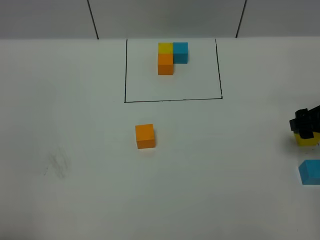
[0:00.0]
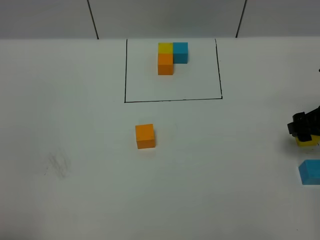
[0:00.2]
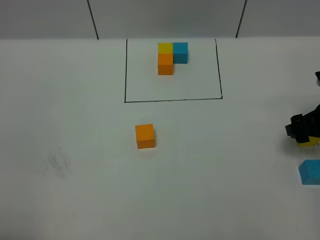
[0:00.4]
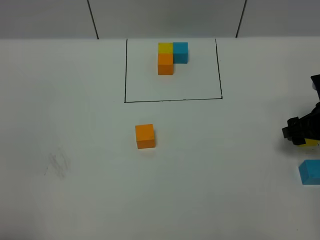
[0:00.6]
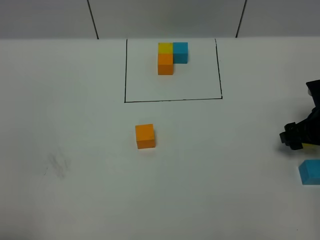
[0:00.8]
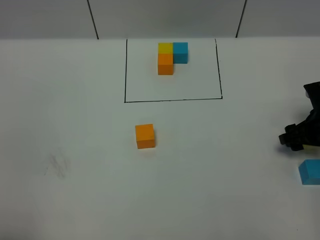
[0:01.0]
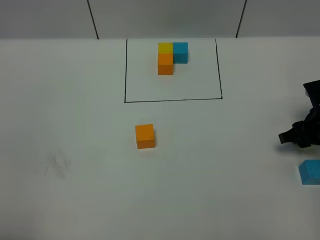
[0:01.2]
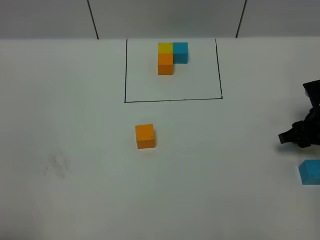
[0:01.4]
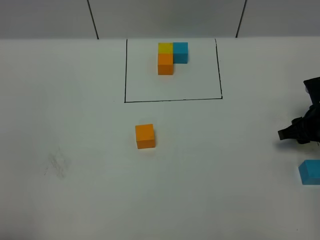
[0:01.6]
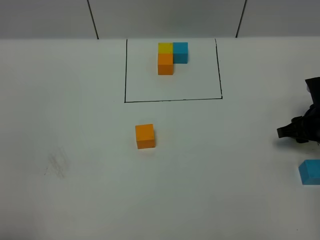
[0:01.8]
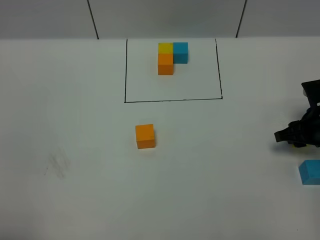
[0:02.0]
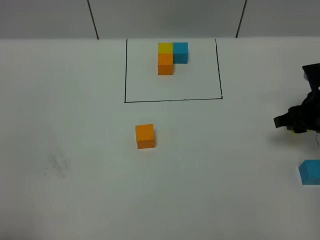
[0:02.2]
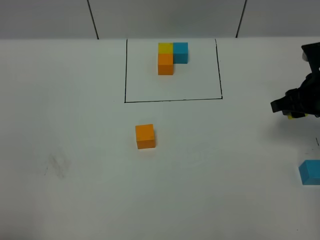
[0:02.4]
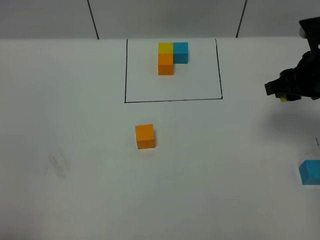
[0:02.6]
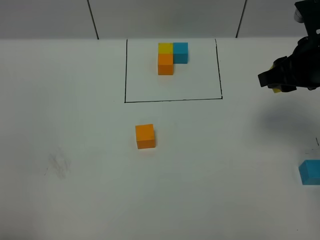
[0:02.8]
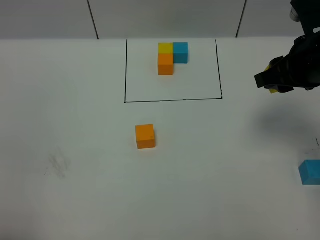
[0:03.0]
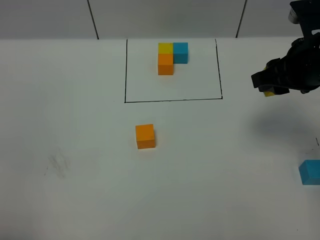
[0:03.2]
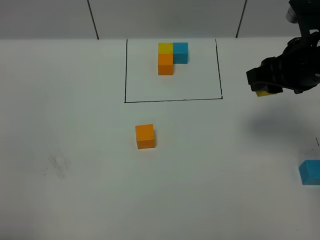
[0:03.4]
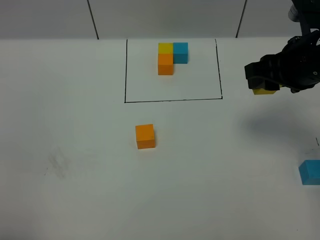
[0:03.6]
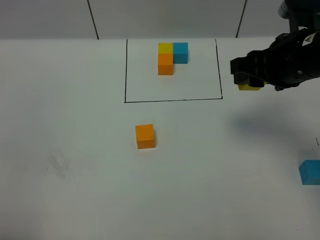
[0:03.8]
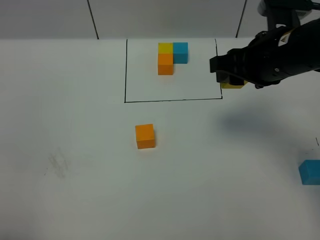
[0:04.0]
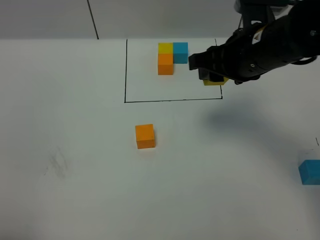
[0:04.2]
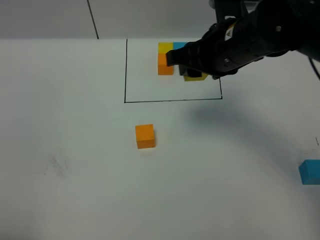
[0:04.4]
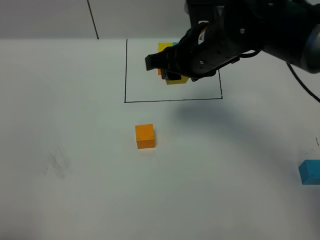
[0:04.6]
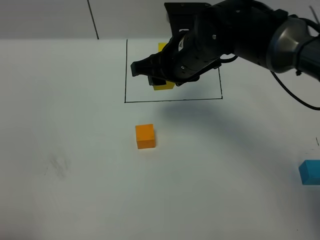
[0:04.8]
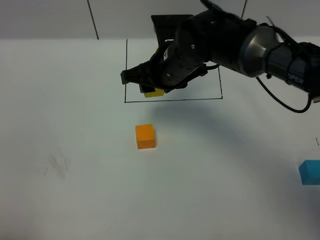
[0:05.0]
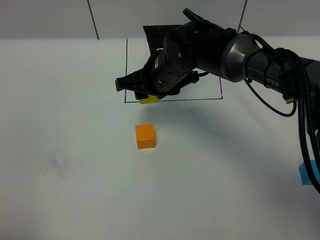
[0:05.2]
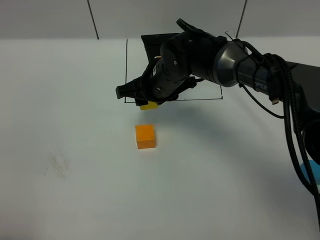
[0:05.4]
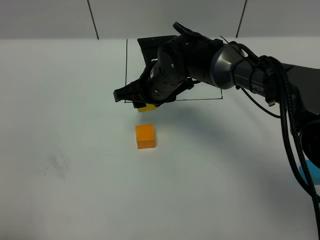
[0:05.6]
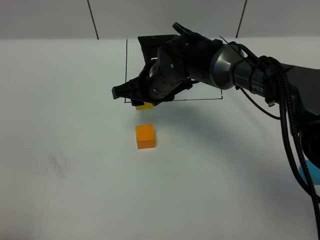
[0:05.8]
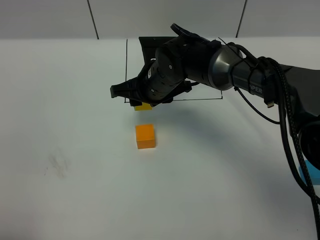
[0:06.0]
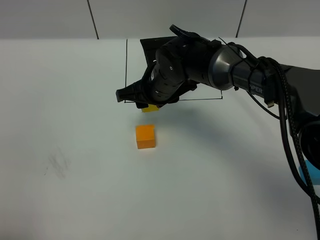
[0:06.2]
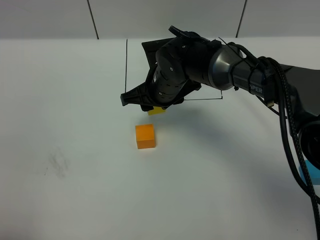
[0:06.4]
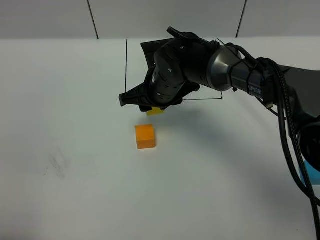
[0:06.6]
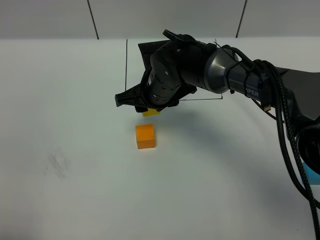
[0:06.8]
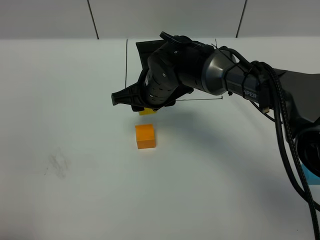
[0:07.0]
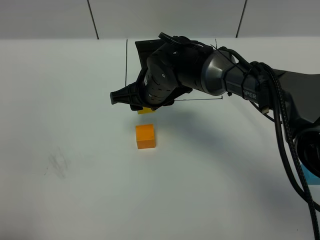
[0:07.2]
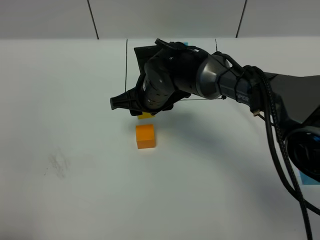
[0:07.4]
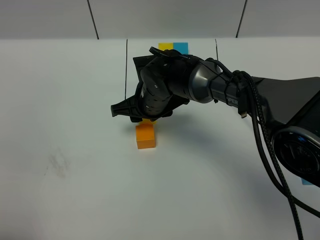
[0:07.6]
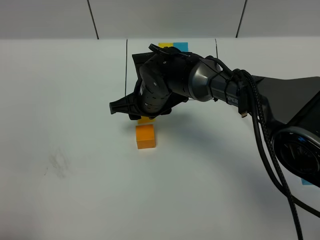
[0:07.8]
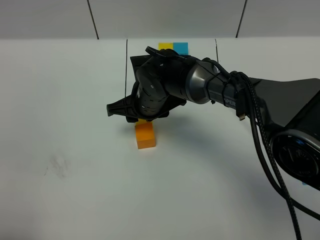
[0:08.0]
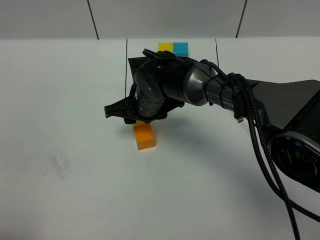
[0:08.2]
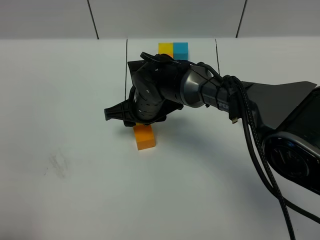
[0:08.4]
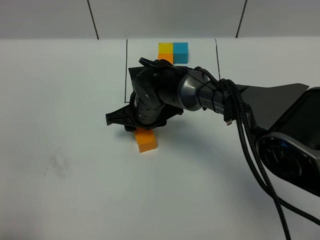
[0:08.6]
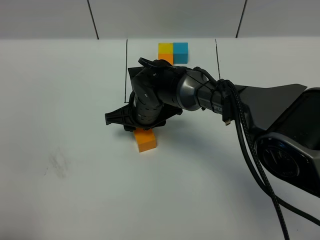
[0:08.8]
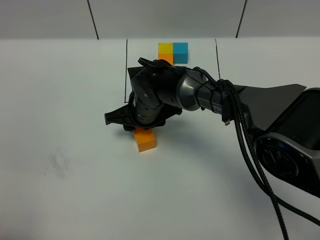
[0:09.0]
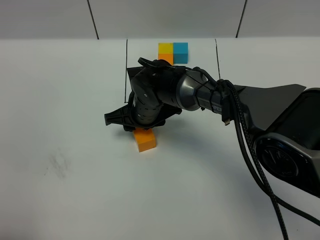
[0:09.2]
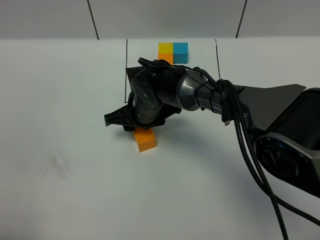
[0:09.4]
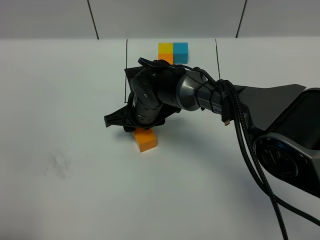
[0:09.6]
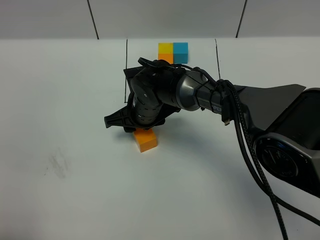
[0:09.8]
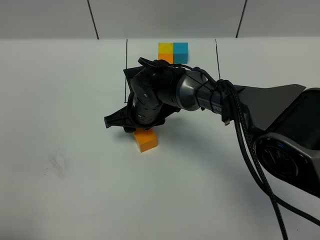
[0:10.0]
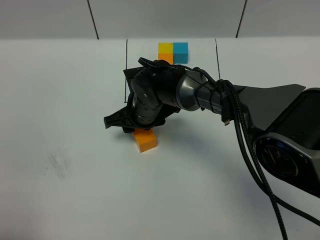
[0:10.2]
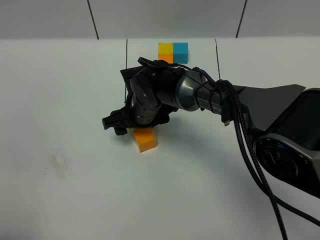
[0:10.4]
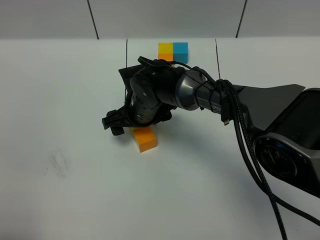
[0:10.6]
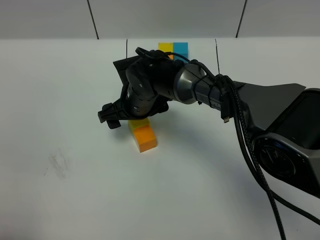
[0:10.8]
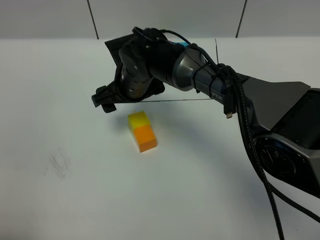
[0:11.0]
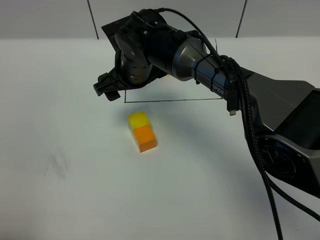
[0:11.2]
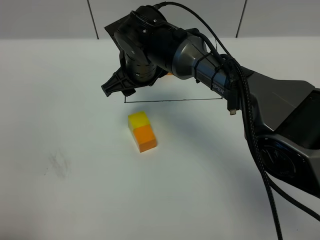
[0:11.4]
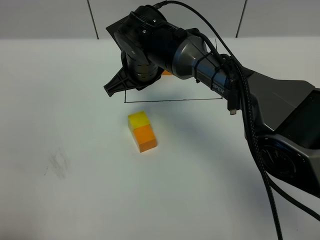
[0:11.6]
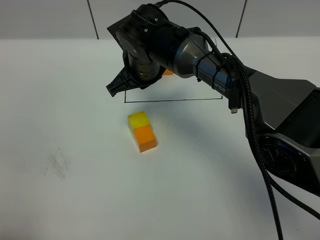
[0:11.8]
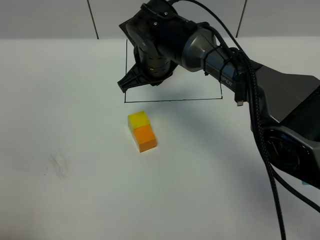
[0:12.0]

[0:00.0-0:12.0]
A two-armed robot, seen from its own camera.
Task of the whole recording: According to the building block template in front, assemble the scattered blocks together.
Step, 0:00.0 to 0:11.6: Put the yellow cube on the behind of the orange cube.
0:00.0 to 0:01.6: The right gripper moves downward, some 5 cm, and closes up.
0:01.6 to 0:03.0: The right gripper travels upward and to the left by about 20 cm.
0:03.0 to 0:04.4: The right gripper heads to the left, covering about 15 cm.
0:04.4 to 0:06.0: The right gripper goes approximately 15 cm downward and to the left.
0:06.0 to 0:07.6: The grippers make only small movements.
0:07.6 to 0:09.0: The grippers stay close to where they were, moving slightly.
0:09.0 to 0:10.4: The right gripper opens.
0:10.4 to 0:12.0: The right gripper moves upward, approximately 10 cm, and closes.

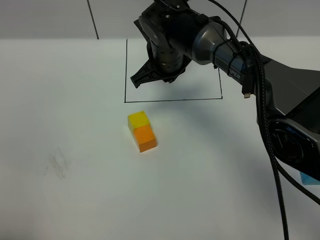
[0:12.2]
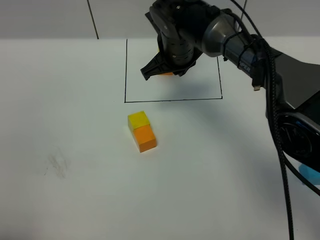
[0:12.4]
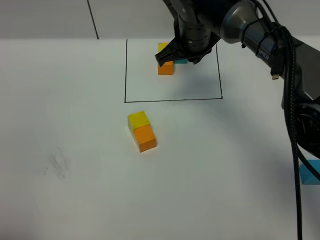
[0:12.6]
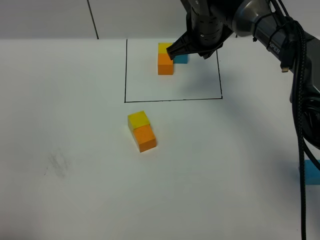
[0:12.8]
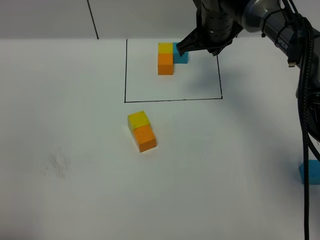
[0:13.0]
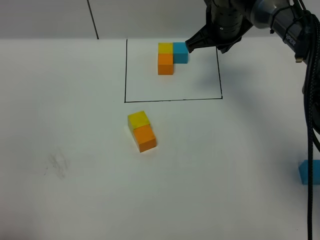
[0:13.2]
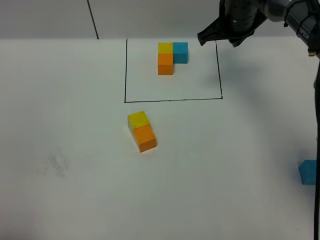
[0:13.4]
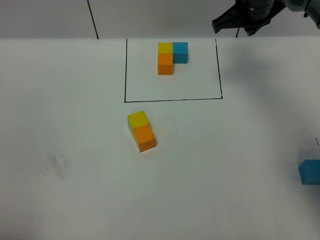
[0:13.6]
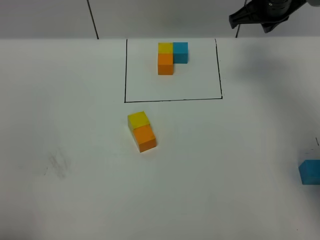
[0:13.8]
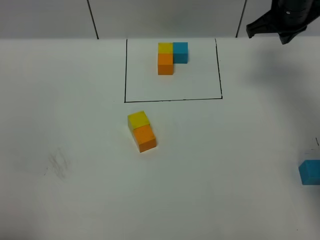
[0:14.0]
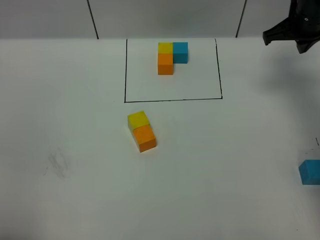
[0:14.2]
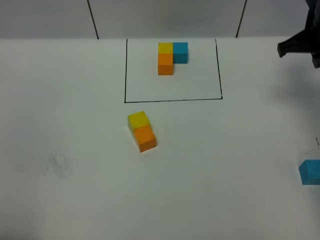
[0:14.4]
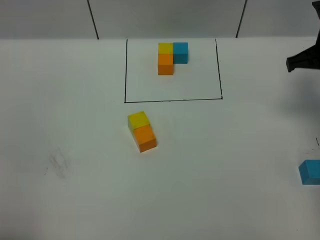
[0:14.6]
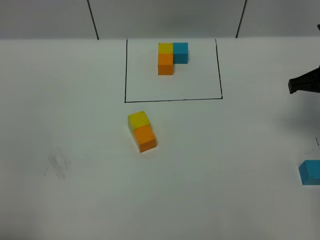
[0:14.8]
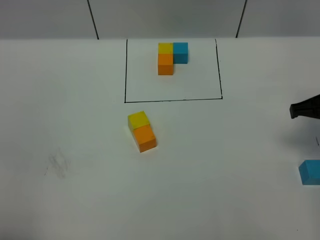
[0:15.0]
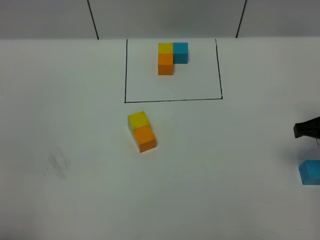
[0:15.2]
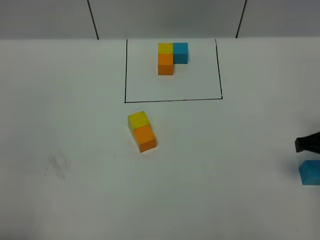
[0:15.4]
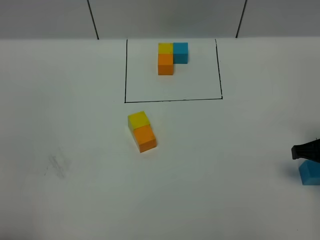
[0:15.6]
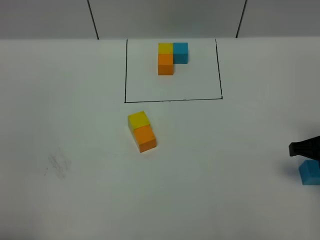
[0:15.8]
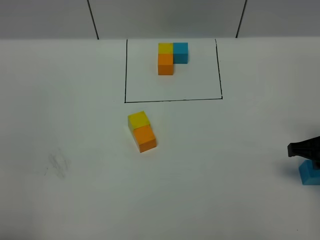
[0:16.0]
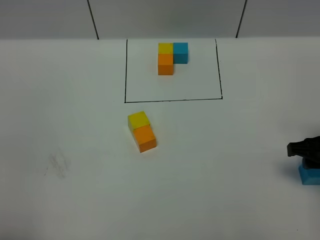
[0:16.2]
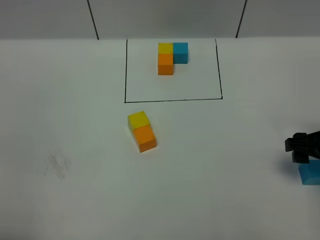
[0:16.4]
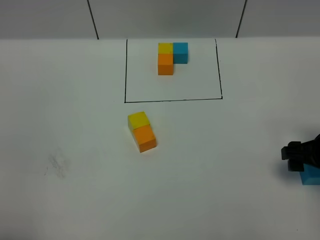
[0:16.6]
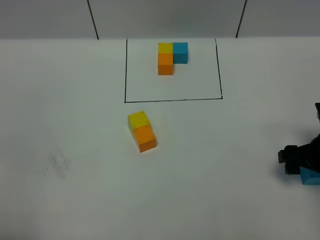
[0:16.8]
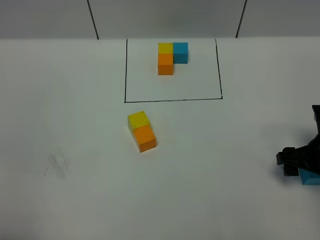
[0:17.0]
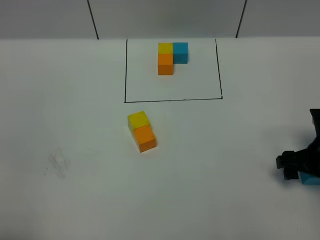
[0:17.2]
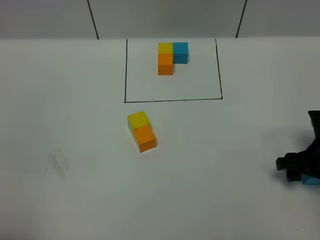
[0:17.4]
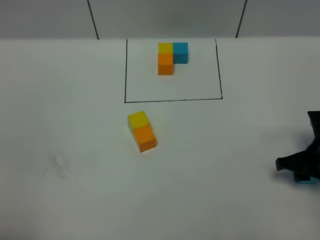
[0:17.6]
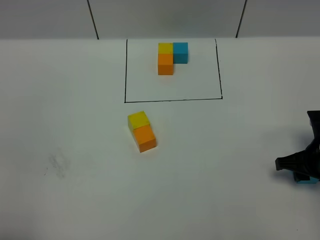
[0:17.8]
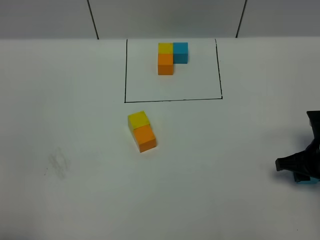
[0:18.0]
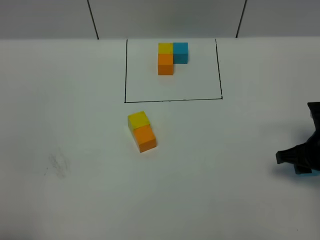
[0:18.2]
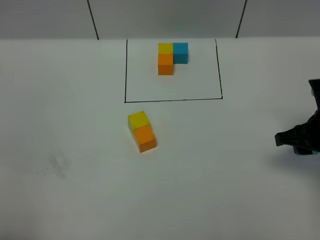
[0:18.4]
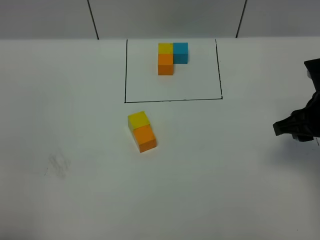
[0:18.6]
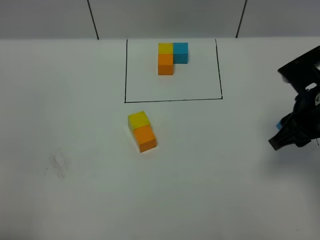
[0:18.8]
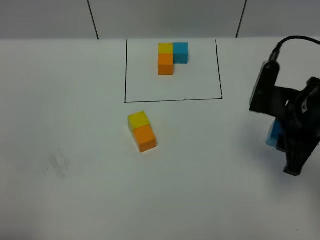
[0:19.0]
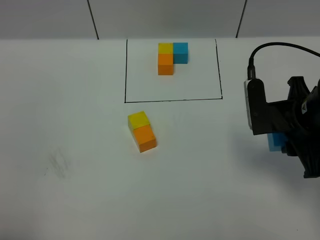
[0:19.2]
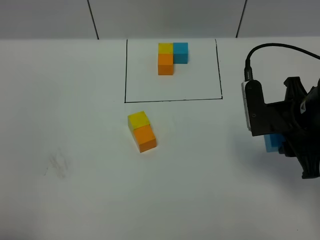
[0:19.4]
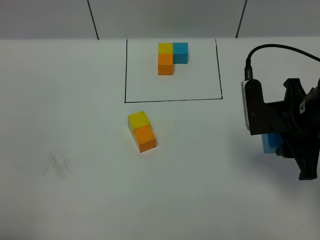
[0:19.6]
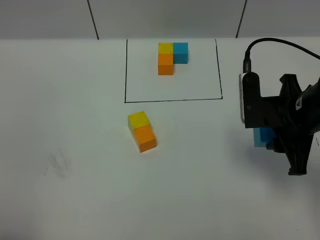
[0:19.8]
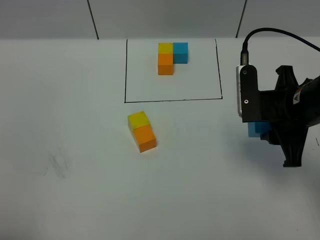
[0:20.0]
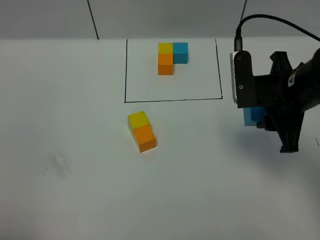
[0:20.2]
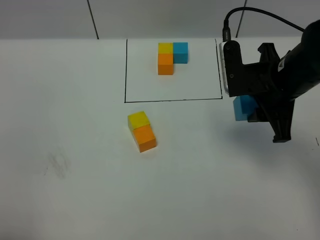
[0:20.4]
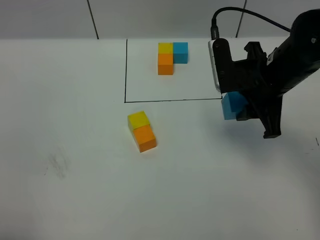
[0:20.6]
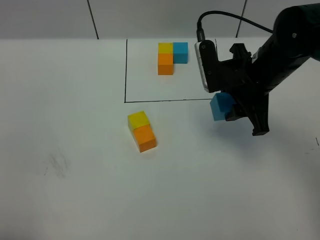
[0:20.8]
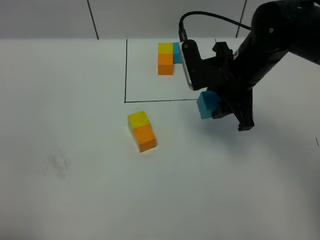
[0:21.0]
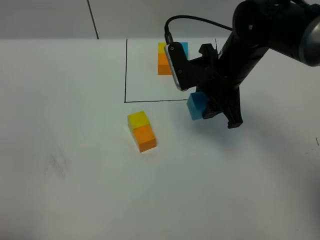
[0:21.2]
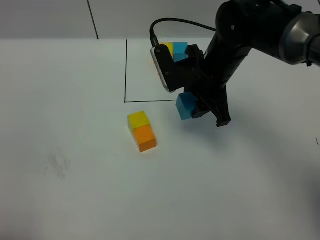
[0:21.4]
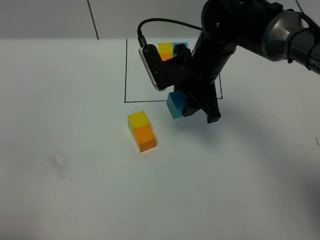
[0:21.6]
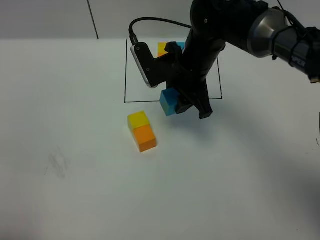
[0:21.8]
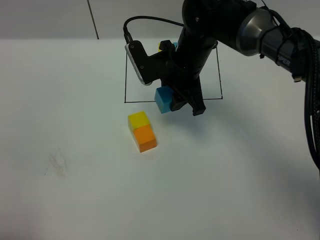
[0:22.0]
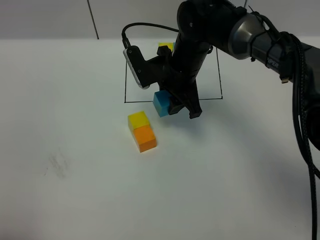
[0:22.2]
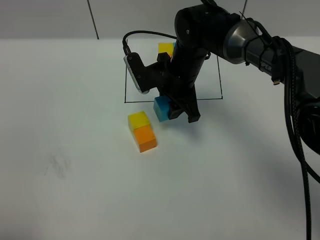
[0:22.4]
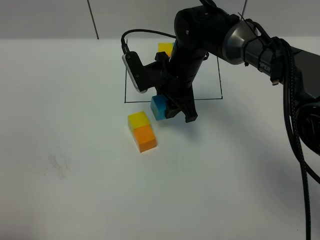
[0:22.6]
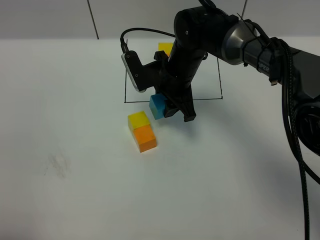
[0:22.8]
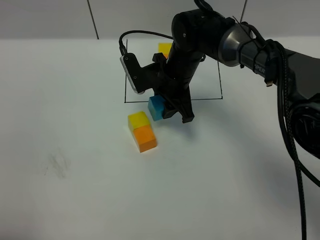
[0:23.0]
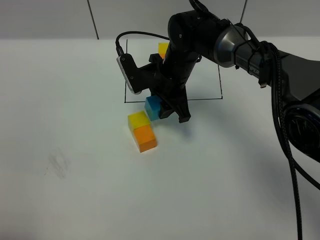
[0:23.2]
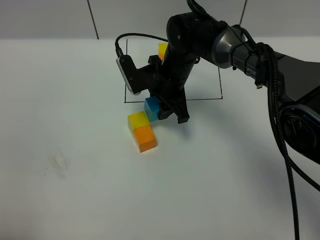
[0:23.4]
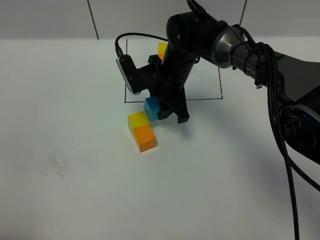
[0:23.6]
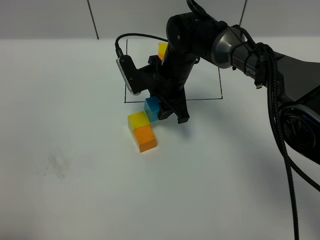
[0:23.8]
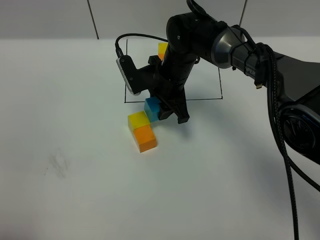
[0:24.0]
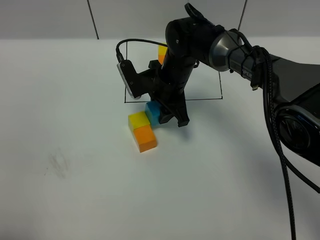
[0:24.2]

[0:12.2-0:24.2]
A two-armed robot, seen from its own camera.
Task of the whole recording: According to the building block template in front, assemble the scattered blocks together.
0:12.2 to 0:13.8: The right gripper goes some 20 cm to the right.
0:13.8 to 0:15.2: The right gripper heads backward, covering some 20 cm.
0:15.2 to 0:16.6: The right gripper shifts about 5 cm downward, and opens.
0:16.6 to 0:18.2: The right gripper closes.
0:18.2 to 0:19.8: The right gripper heads upward and to the left, covering some 10 cm.
0:19.8 to 0:21.2: The right gripper shifts approximately 15 cm to the left and forward.
0:21.2 to 0:22.6: The right gripper heads to the left, forward and downward, covering about 10 cm.
0:22.6 to 0:24.2: The grippers move only a little.
